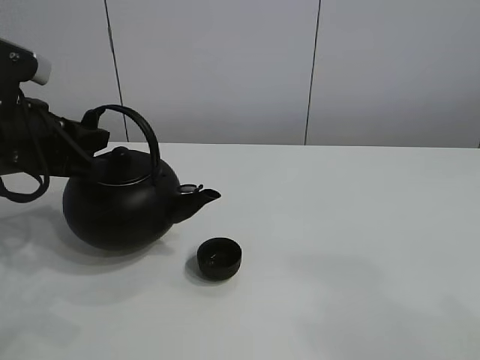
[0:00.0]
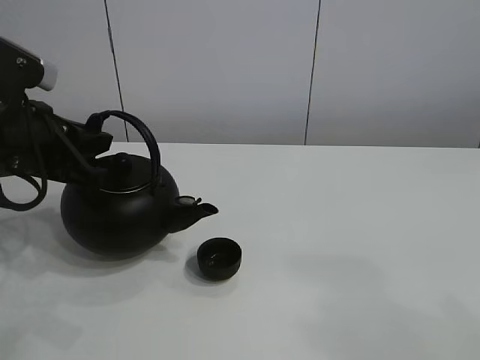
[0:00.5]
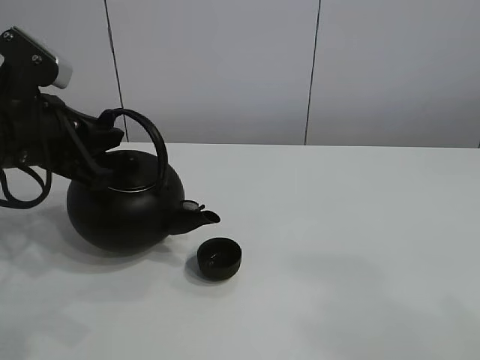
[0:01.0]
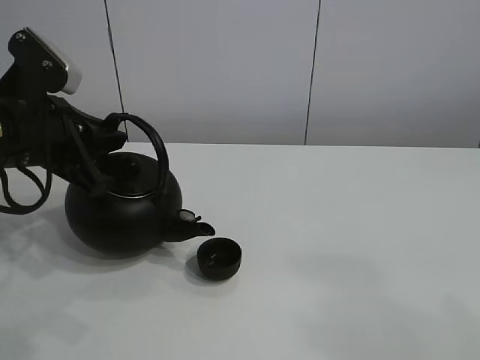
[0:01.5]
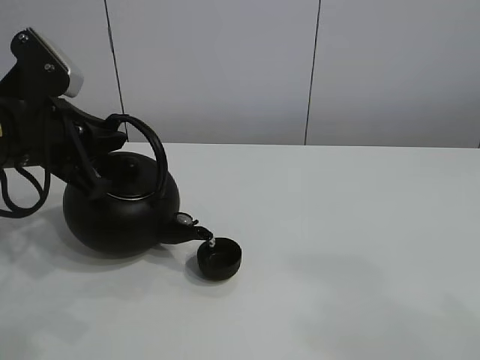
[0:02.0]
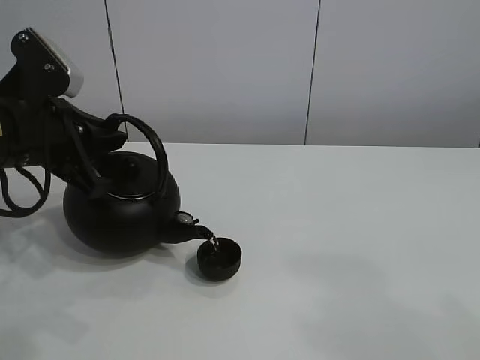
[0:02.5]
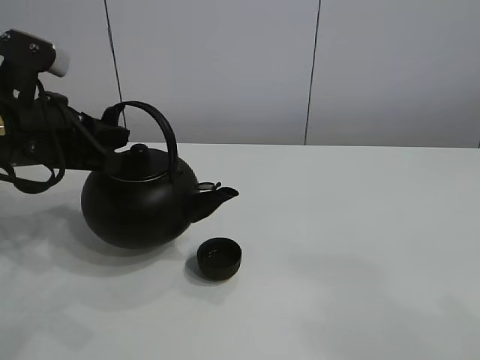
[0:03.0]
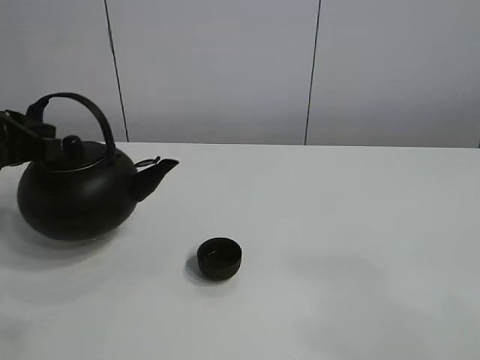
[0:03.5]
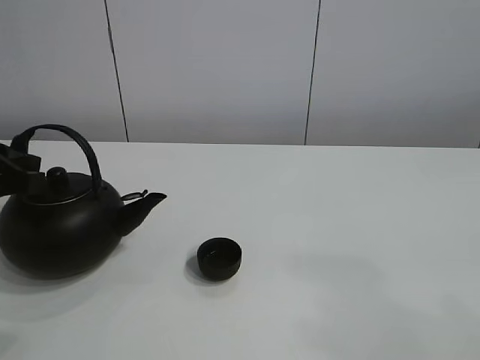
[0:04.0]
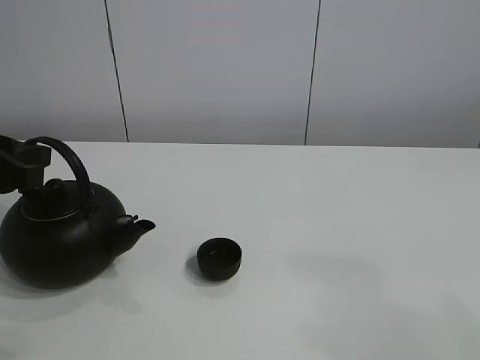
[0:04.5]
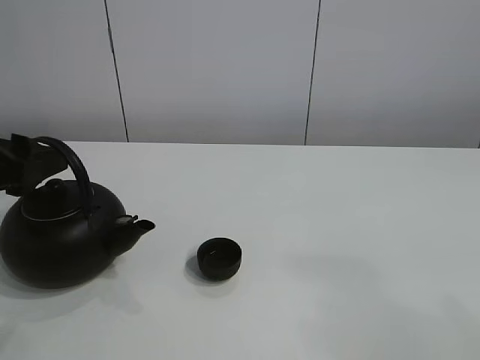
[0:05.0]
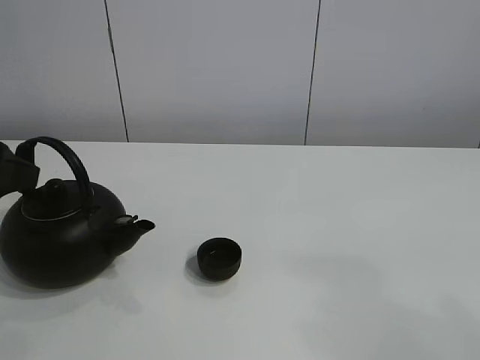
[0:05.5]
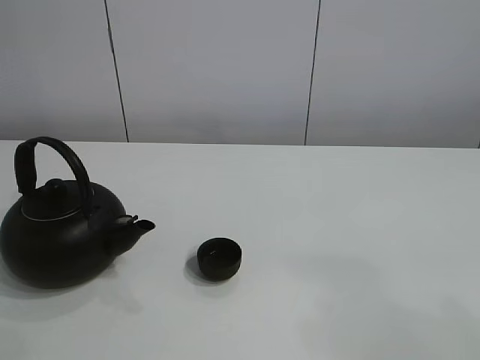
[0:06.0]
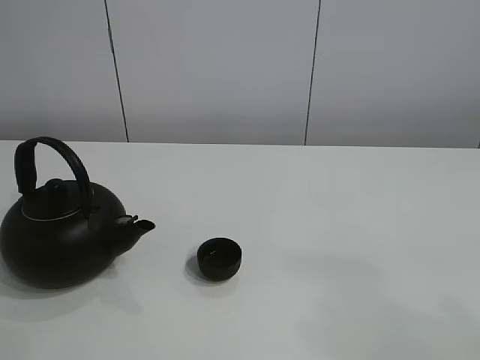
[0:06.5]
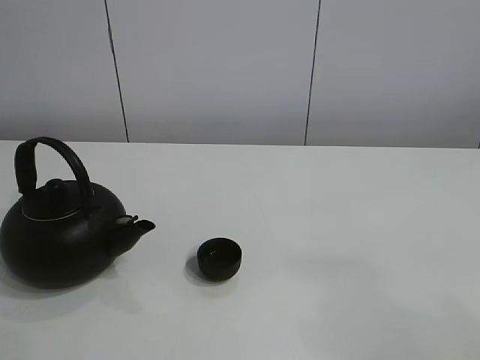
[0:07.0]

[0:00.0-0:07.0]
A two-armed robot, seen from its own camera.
Task of the whole recording: pour tea into the teacup.
Step, 0:00.0 to 0:02.5: Pour tea into the teacup with the left gripper.
0:00.0 to 0:02.0: The grippers stay close to where they were, moving slightly.
0:02.0 to 0:03.5: The left gripper moves to the left, about 5 cm.
0:03.5 to 0:05.0: The left gripper opens up.
0:05.0 to 0:07.0: The left gripper is displaced backward and upward by approximately 35 cm.

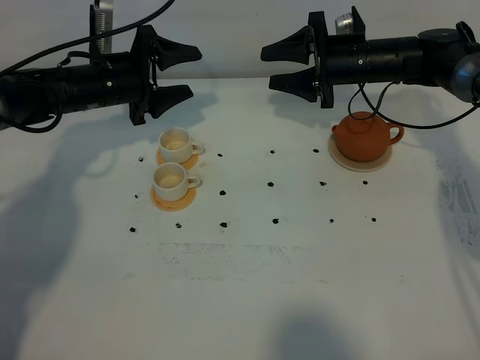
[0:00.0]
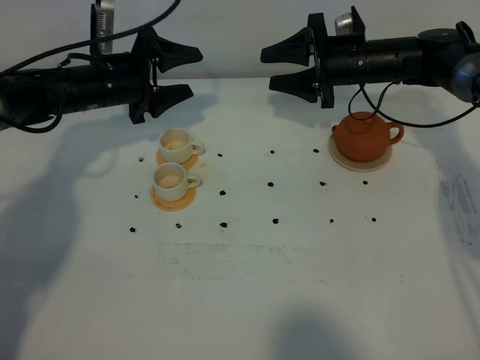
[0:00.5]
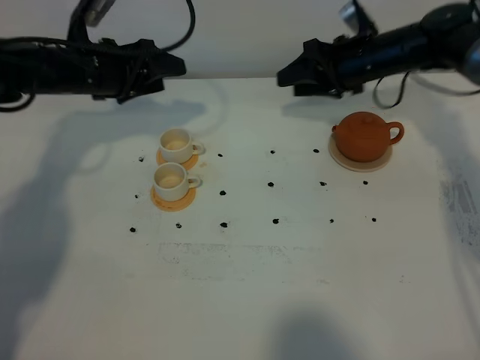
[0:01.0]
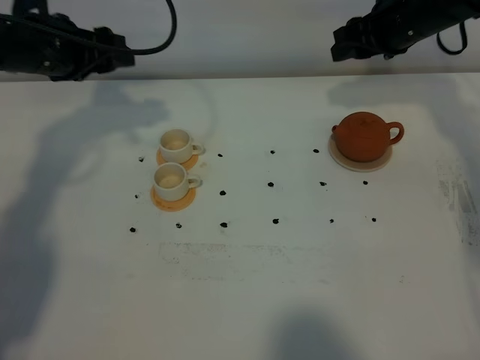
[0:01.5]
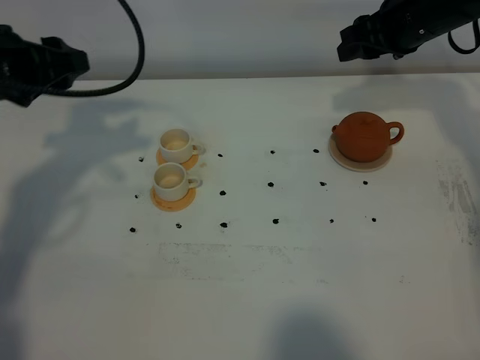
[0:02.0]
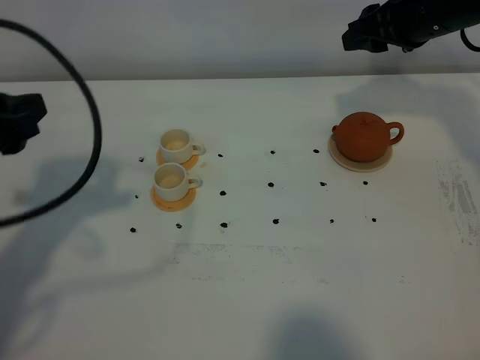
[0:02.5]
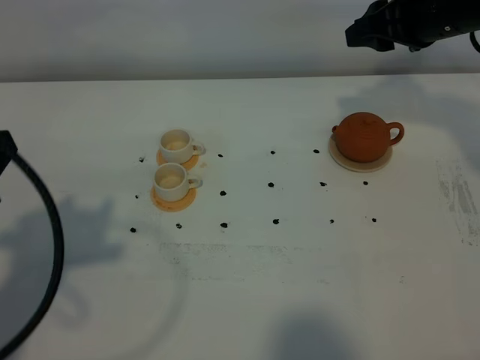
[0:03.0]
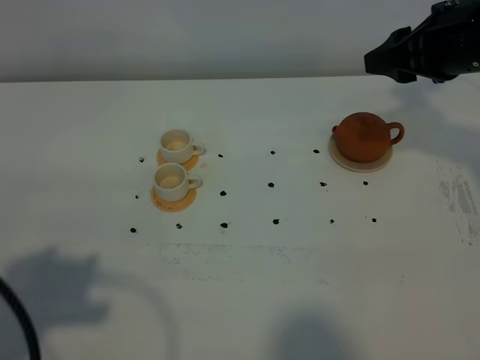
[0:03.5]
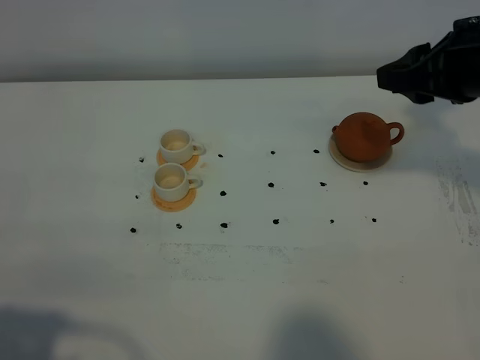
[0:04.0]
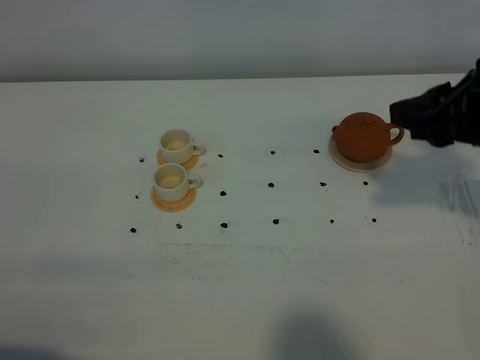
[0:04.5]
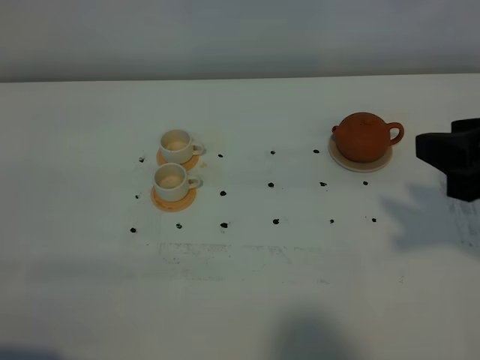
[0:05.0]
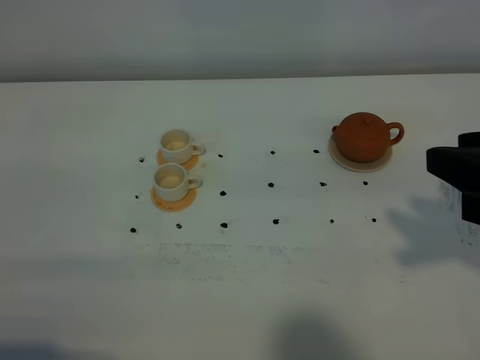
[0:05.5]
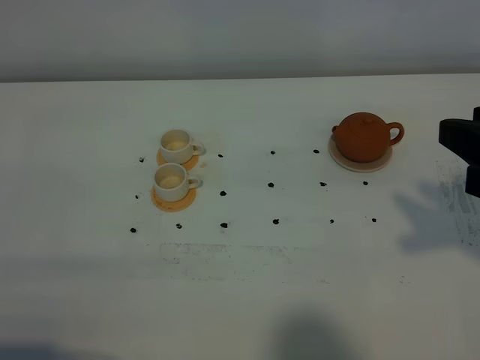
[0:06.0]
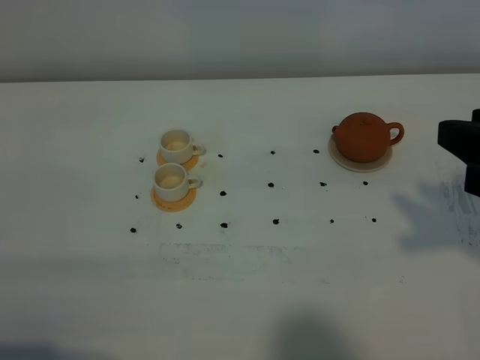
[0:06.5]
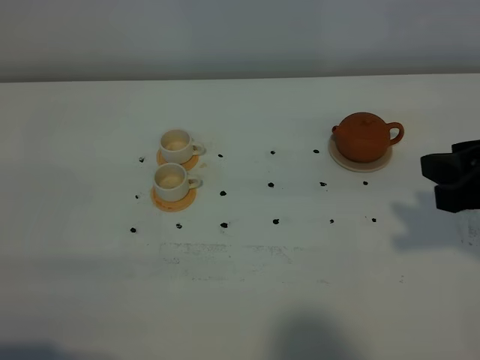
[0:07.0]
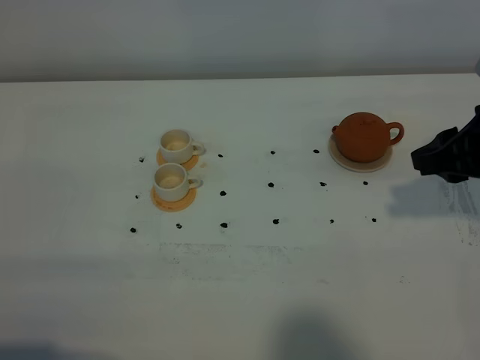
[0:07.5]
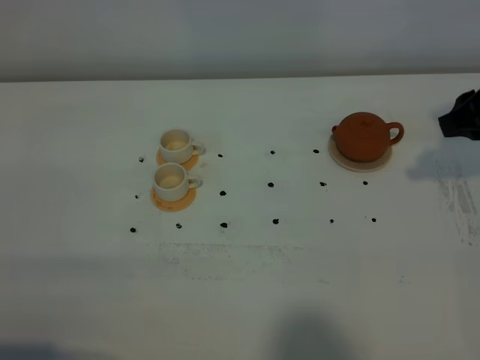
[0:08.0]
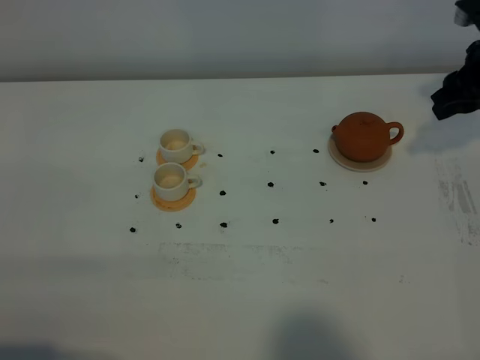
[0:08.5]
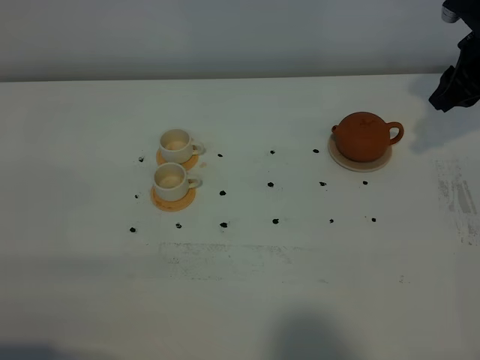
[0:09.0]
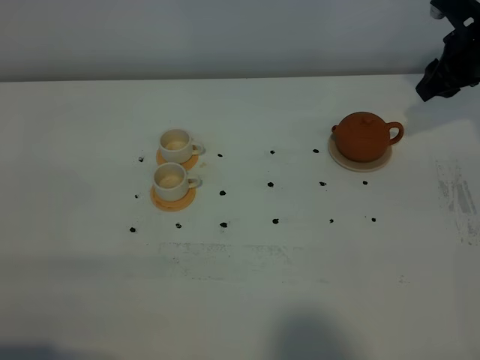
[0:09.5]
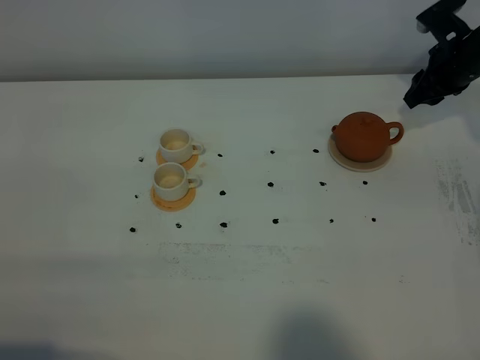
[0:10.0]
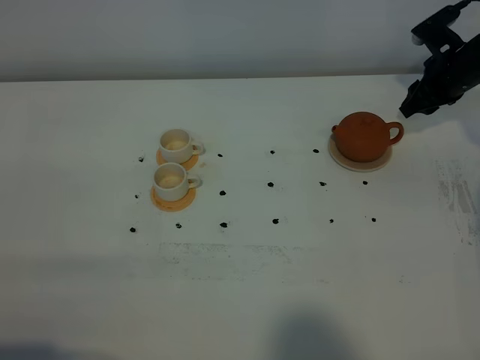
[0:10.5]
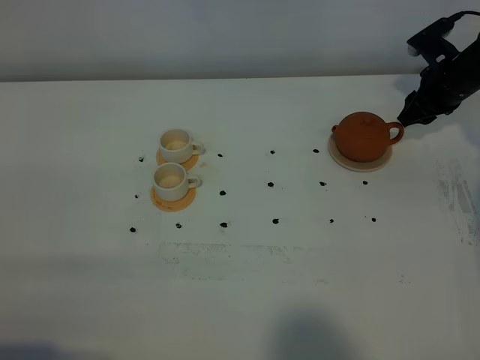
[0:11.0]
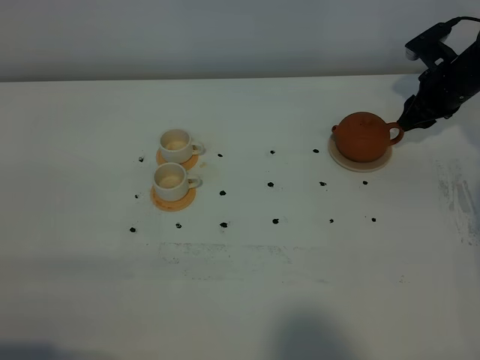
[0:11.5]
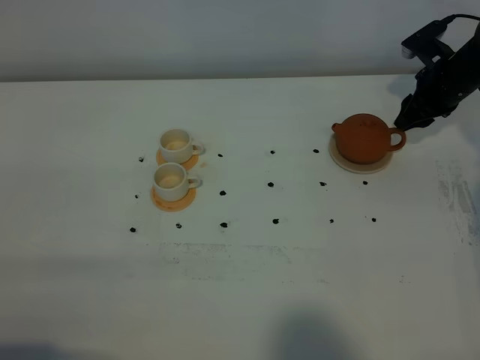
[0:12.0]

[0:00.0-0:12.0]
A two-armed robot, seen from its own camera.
Task of the whole recording: grasp the brown teapot and pour the tea into the two white teacups one by one, put the brown teapot back in its original place.
0:00.0 to 0:02.0: The left gripper is displaced upward, backward and to the left by roughly 20 cm. Meanwhile the right gripper heads upward and to the right, covering some 10 cm.
0:02.0 to 0:04.0: The left gripper is displaced backward by approximately 30 cm, while the right gripper is displaced backward by approximately 15 cm.
0:04.0 to 0:06.0: The right gripper goes approximately 15 cm backward.
0:06.0 to 0:08.0: The right gripper goes some 20 cm forward and downward.
0:08.0 to 0:10.0: The right gripper shifts some 20 cm forward and downward.
0:10.0 to 0:12.0: The grippers stay close to where they were, moving slightly.

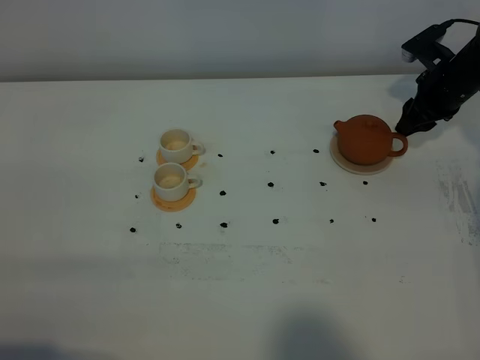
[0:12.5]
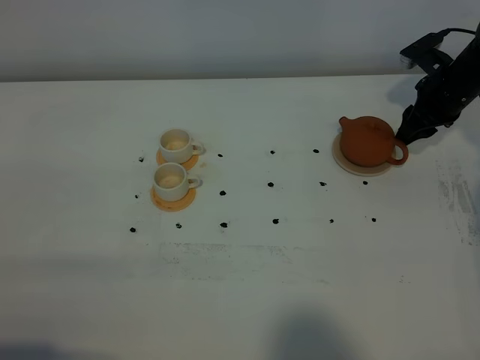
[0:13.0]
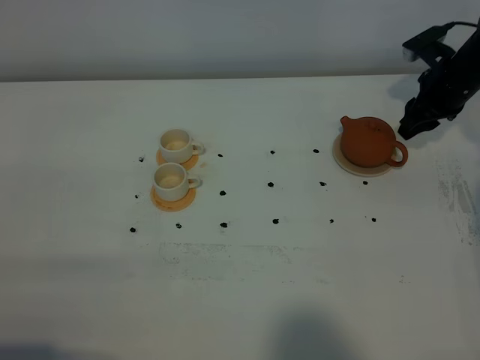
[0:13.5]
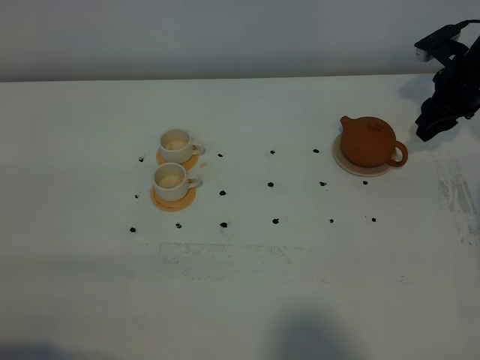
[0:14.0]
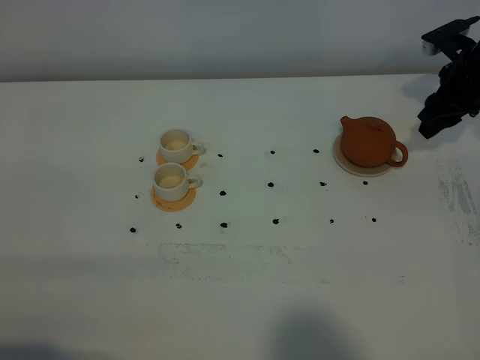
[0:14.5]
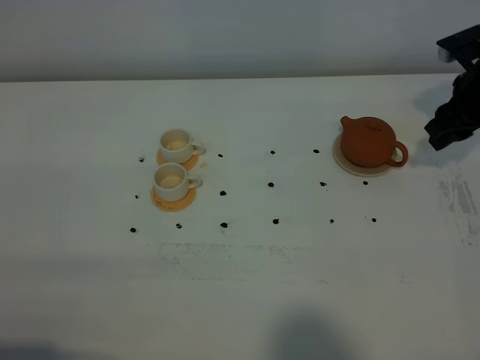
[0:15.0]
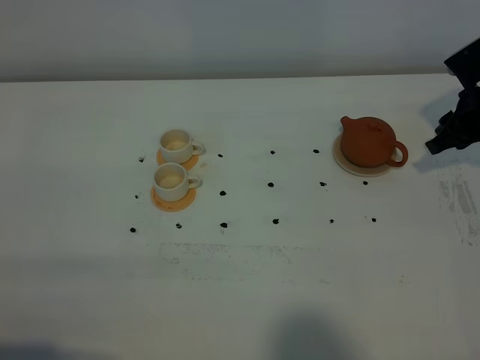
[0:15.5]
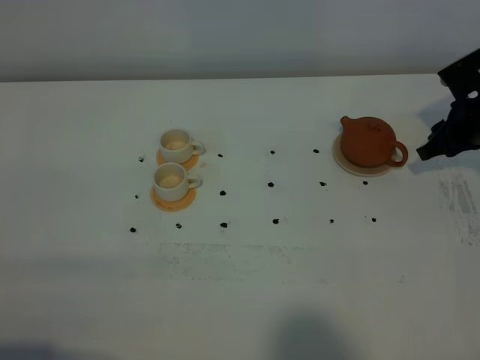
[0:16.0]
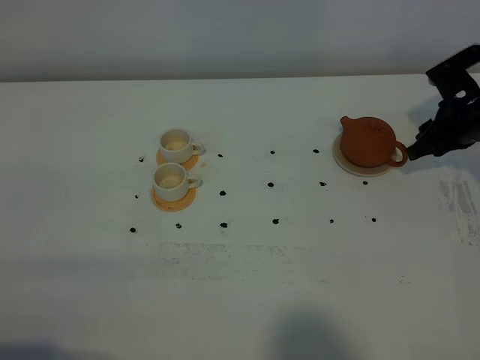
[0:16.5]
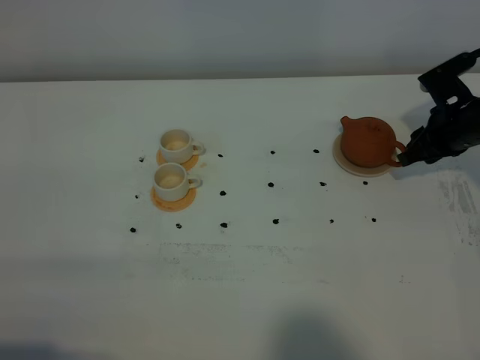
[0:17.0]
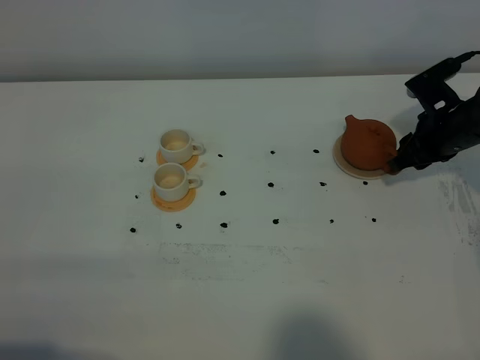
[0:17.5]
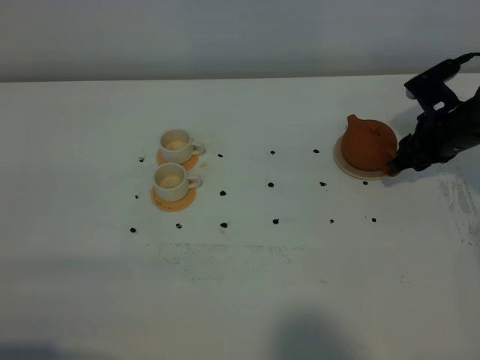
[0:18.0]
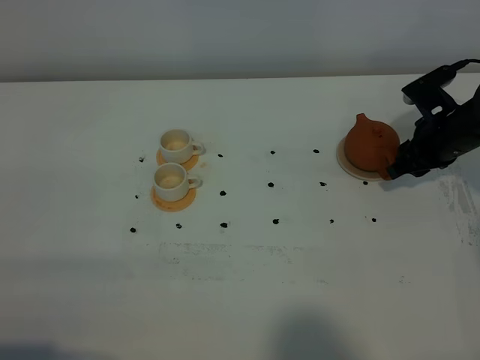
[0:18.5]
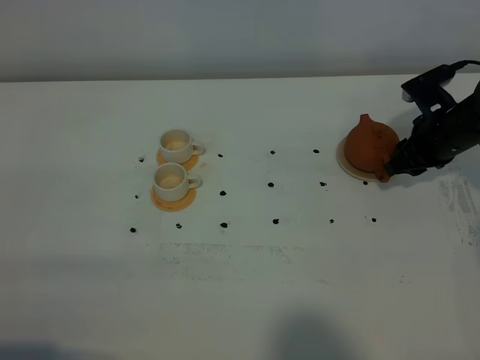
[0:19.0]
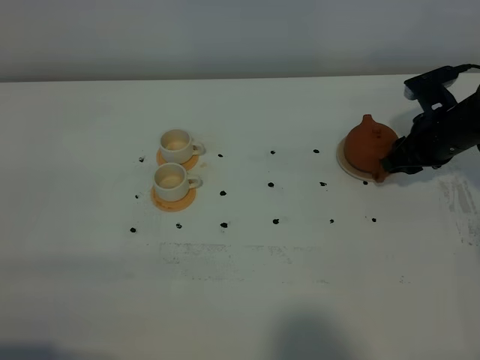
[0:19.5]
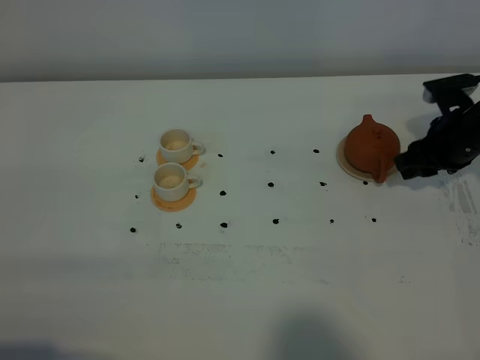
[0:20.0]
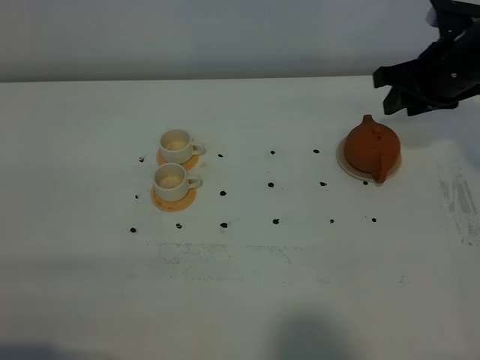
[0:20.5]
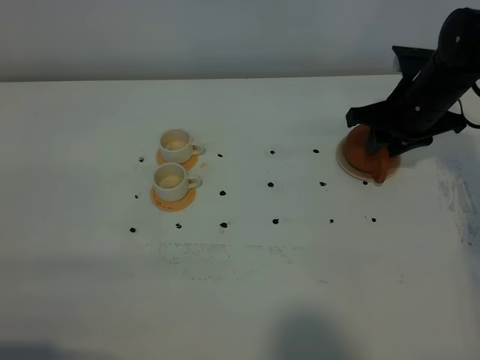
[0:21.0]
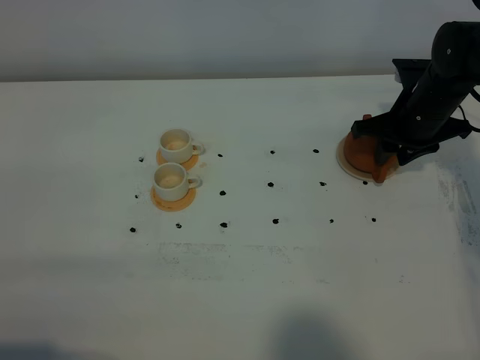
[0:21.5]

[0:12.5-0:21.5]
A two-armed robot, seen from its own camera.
Task of the whole recording: grasp the brown teapot and pour the tea into the two white teacups one by one, put the brown teapot back in its original place.
0:12.5 to 0:14.5: The grippers move only a little.
0:14.5 to 0:17.0: The right gripper moves downward, about 5 cm.
0:17.0 to 0:19.5: There are only small adjustments of the grippers.
0:19.5 to 0:21.5: The right gripper reaches about 10 cm upward, then returns.
